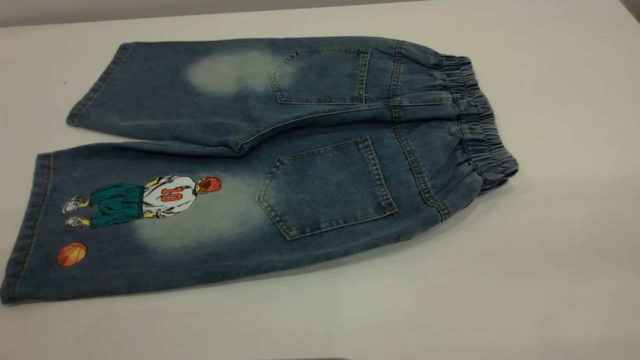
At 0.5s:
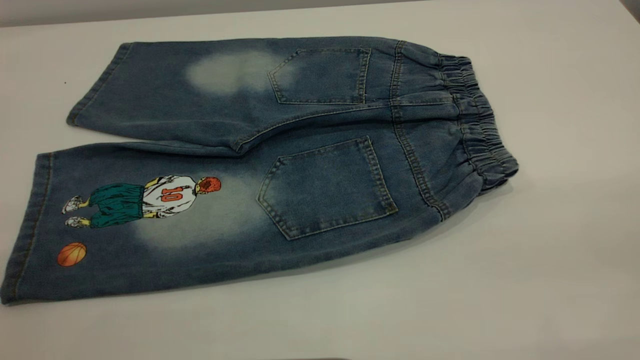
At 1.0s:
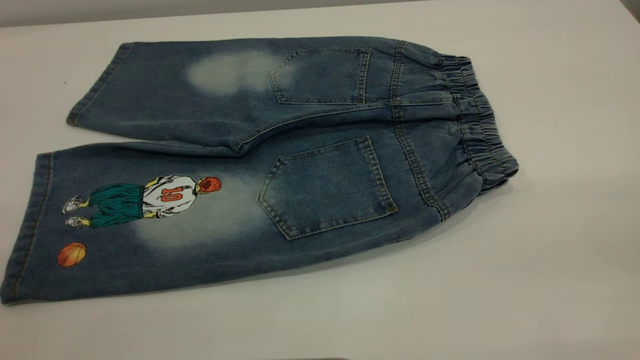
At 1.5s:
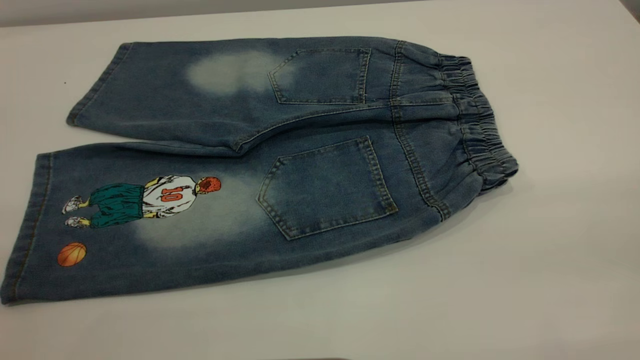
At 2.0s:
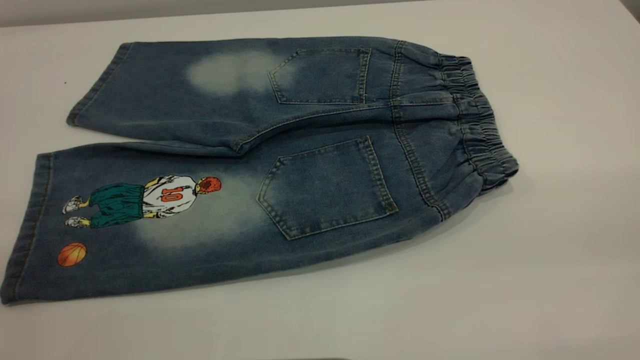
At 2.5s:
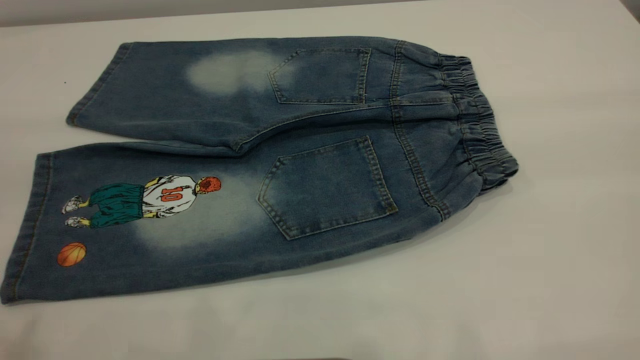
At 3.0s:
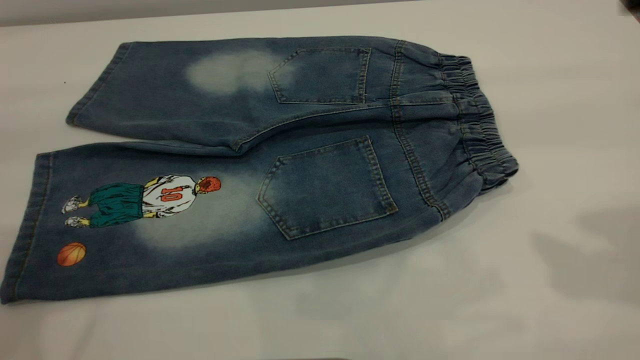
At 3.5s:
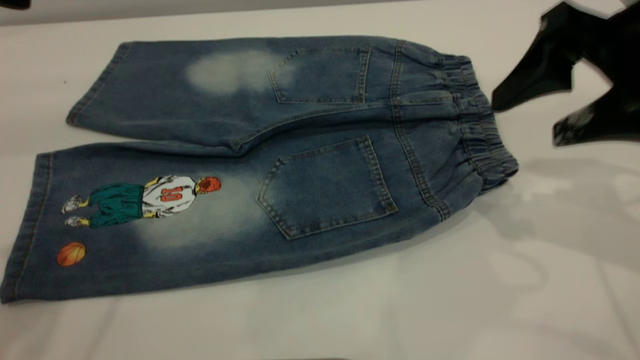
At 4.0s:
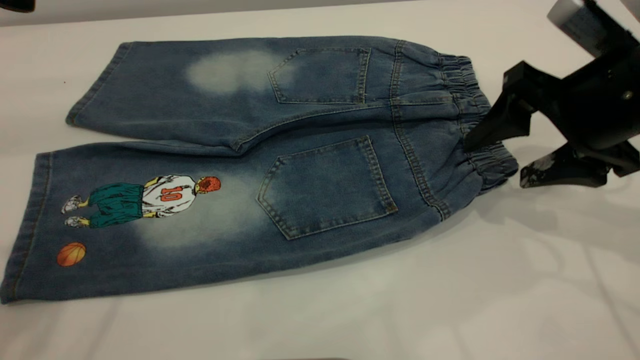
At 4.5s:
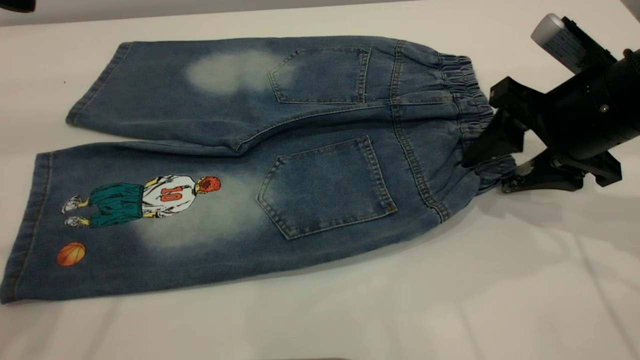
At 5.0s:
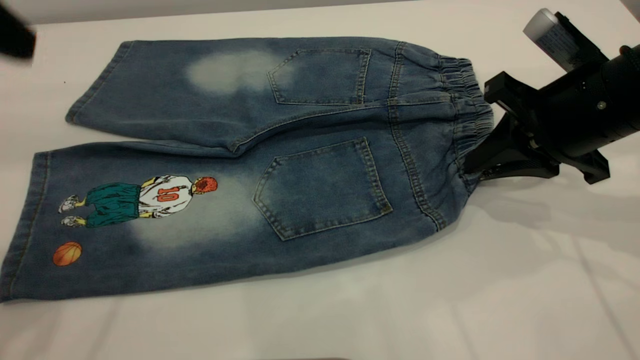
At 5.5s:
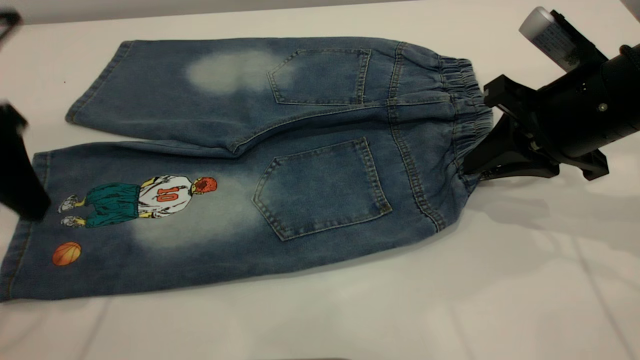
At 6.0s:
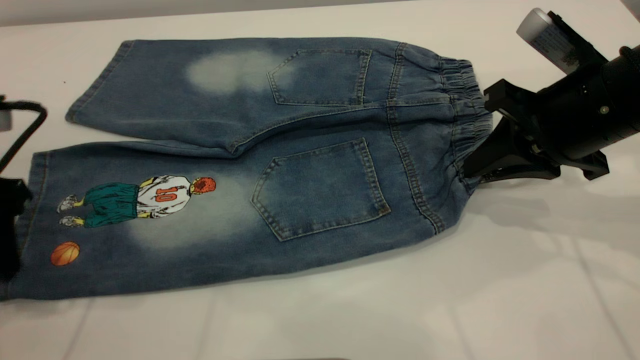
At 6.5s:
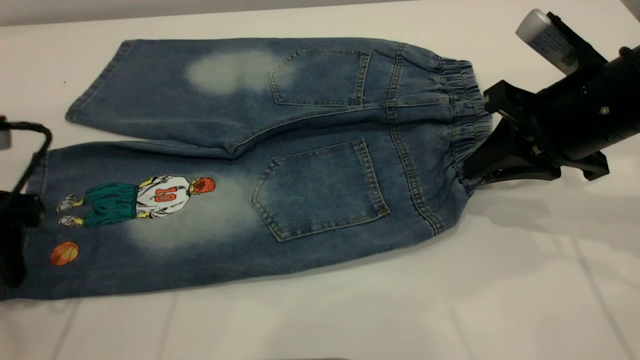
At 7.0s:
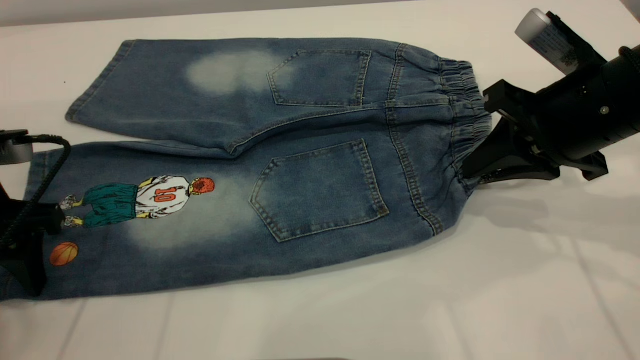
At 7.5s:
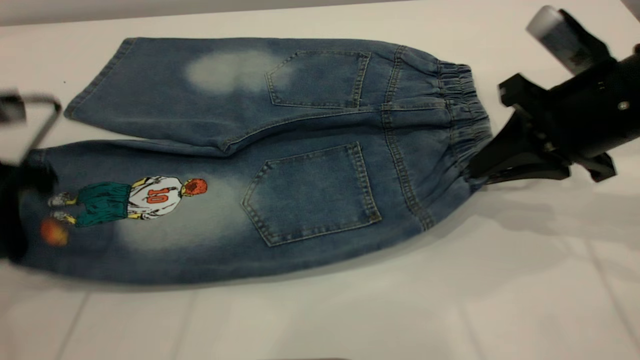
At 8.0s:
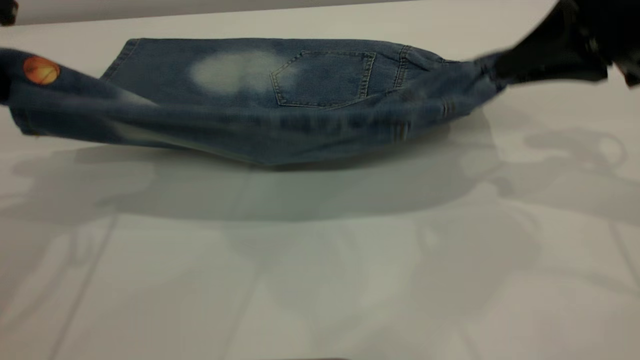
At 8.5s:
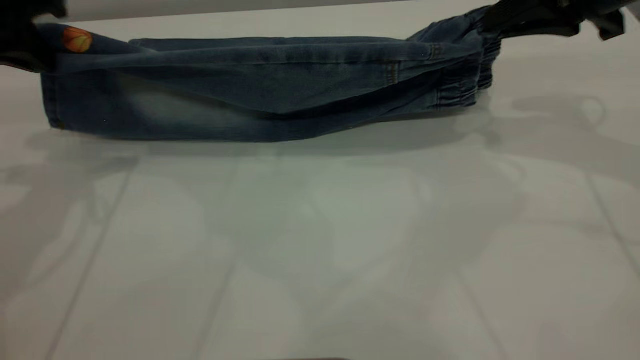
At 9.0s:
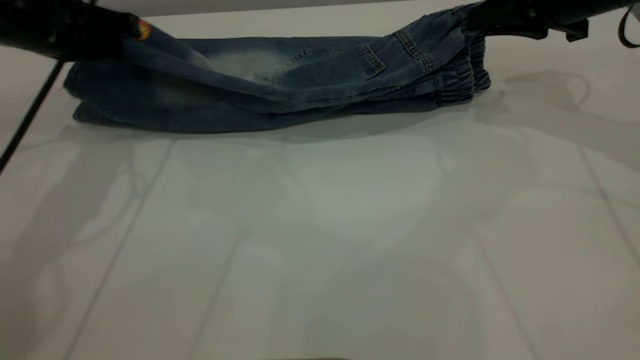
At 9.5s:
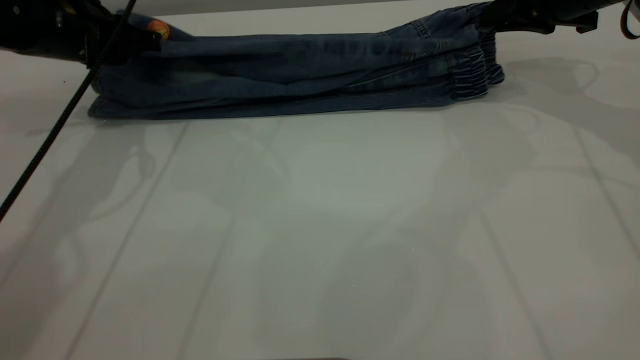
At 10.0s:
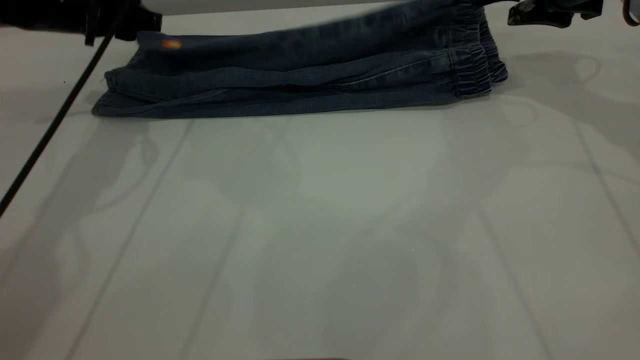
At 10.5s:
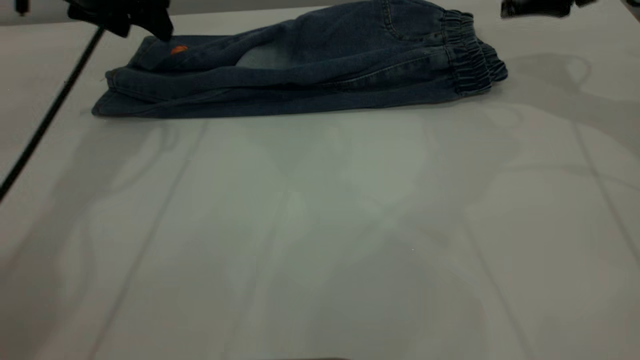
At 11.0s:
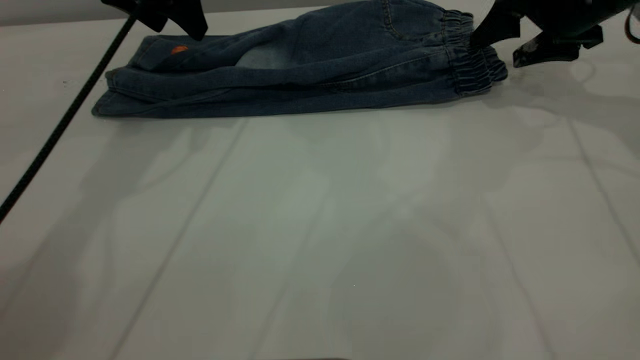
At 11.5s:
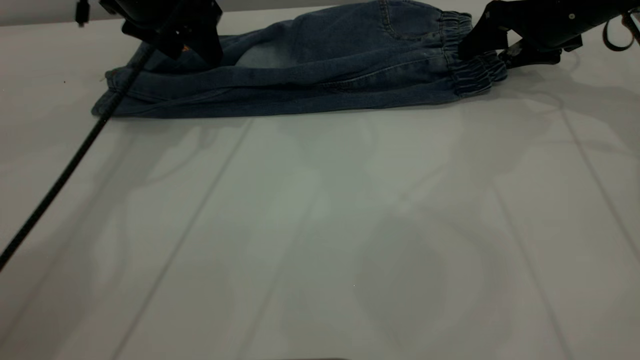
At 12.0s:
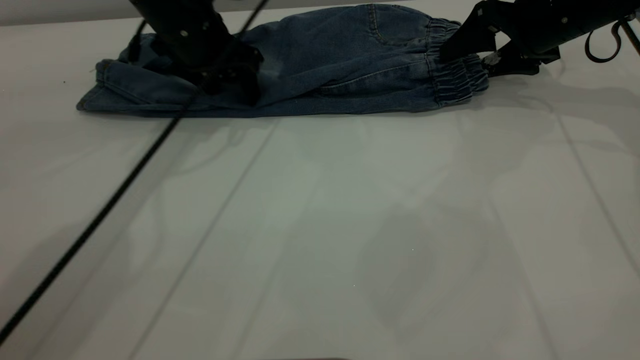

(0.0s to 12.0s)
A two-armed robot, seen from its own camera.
Step, 0.0s - 10.0s: Fold the bottom of the pants upward.
2.0s - 4.0s: The right gripper is displaced forward and downward by approximately 35 cm.
4.0s - 6.0s: The right gripper closes, while the left gripper is displaced downward by about 15 cm.
6.0s - 8.0s: The right gripper is displaced upward by about 10 cm. Meanwhile the left gripper is displaced upward and forward by some 10 cm, and closes its fingers.
8.0s - 10.0s: The right gripper goes some 15 cm forward, and opens its fingers. Meanwhile the left gripper goes about 15 cm forward and downward, and opens.
10.0s - 12.0s: The right gripper ends up some 5 cm from where it was. The left gripper travels to the right by about 10 cm.

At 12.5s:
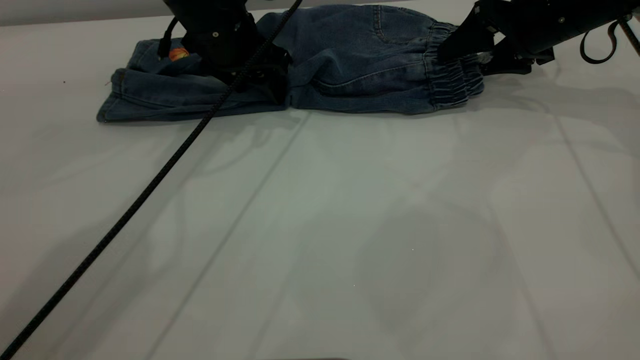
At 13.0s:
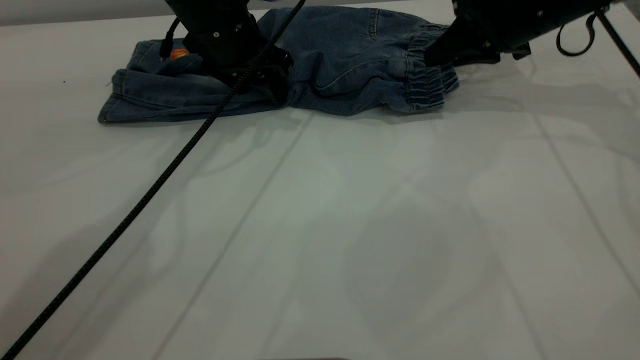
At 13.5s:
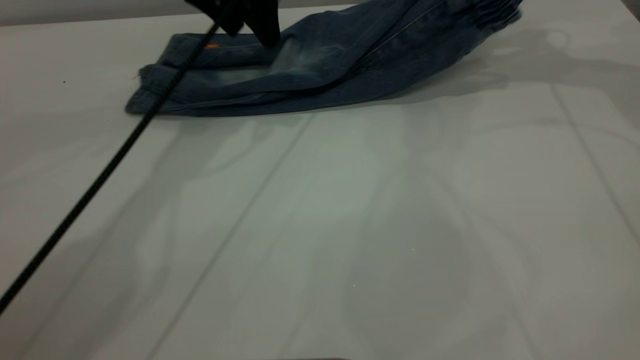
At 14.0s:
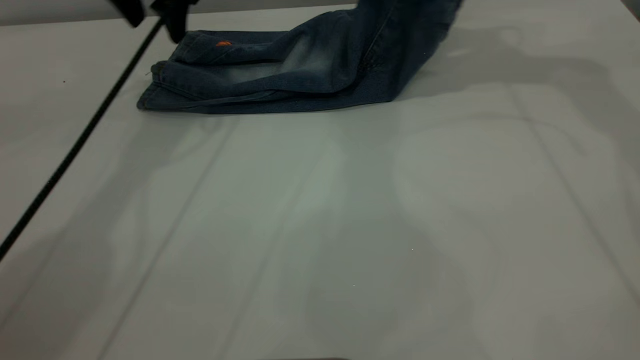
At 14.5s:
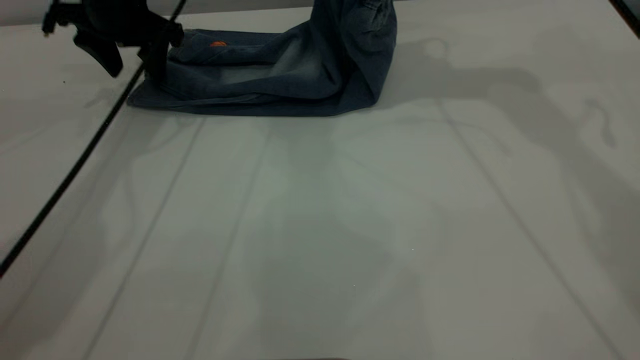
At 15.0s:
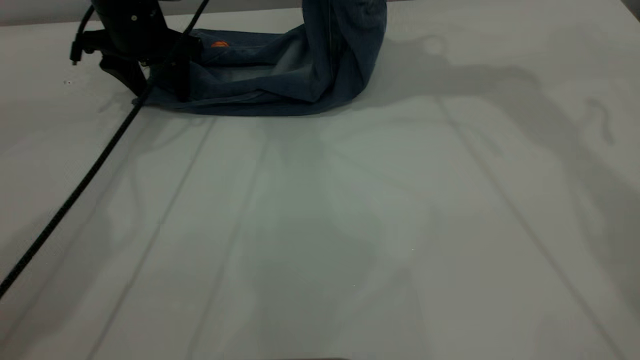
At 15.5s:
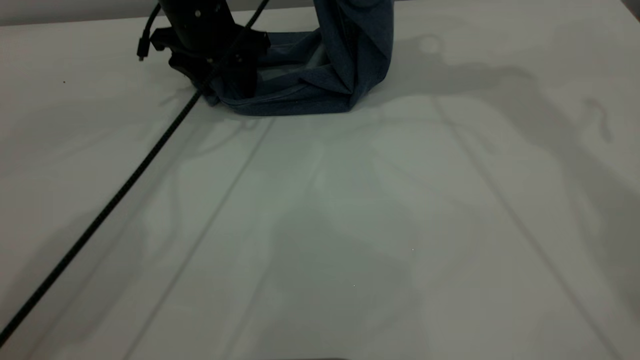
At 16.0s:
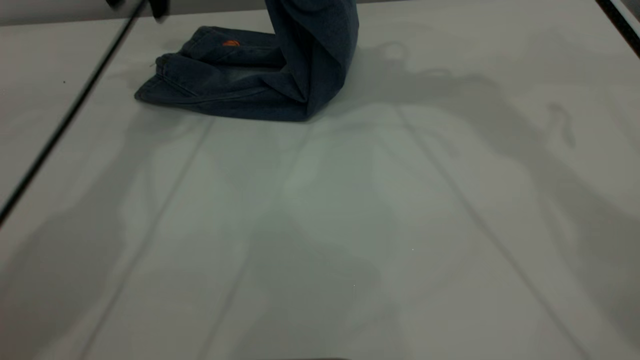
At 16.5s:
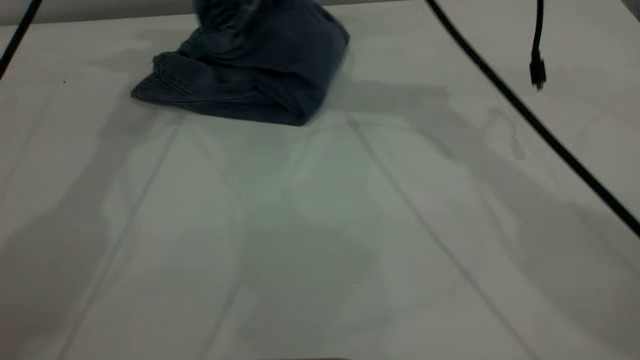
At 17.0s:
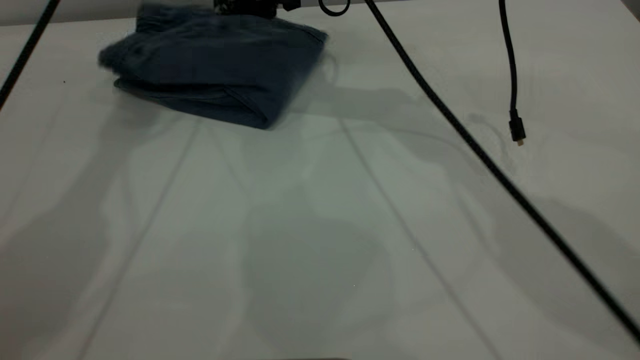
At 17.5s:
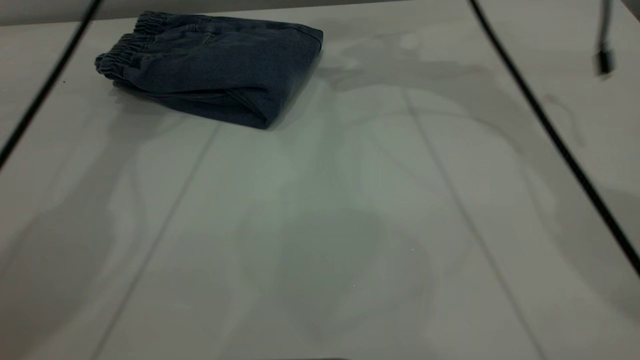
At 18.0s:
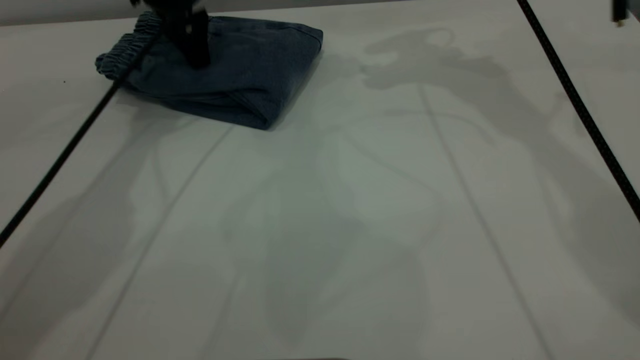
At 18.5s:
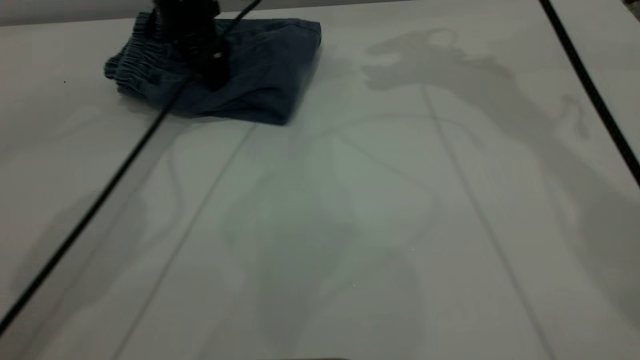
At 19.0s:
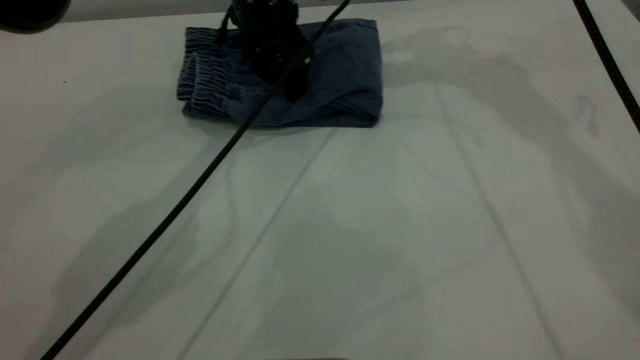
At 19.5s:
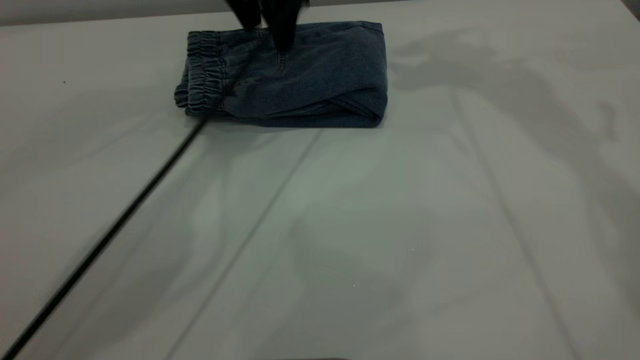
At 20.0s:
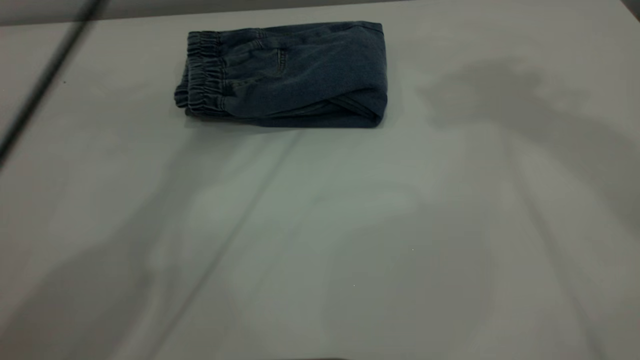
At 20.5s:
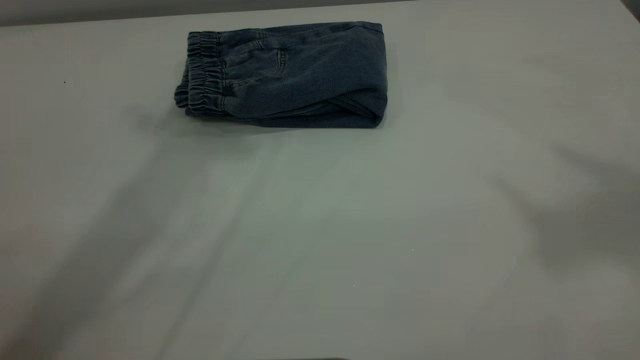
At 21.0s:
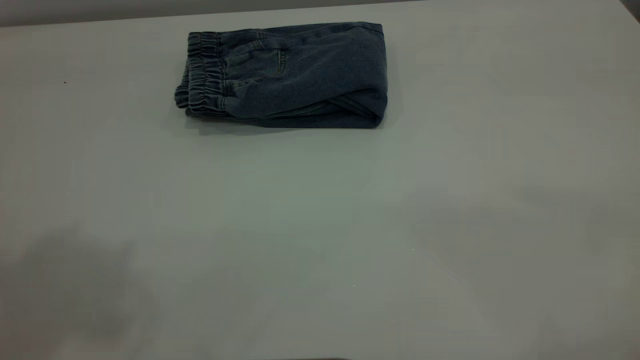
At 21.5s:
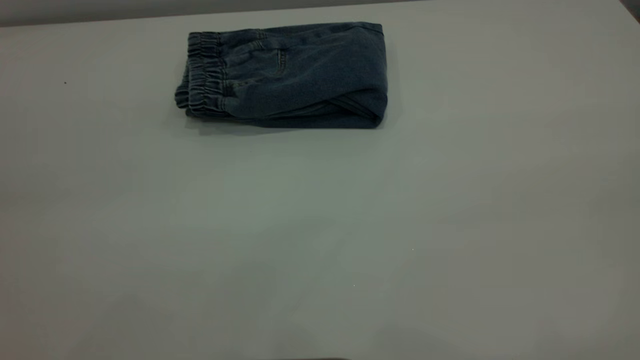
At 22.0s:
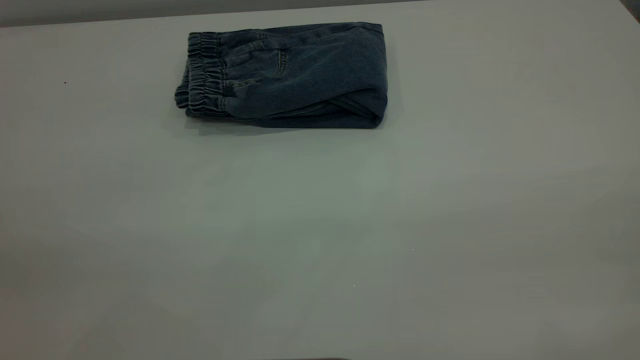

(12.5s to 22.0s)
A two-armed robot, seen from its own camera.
Step, 12.5s - 17.0s: Fold your pants from right to left.
12.5s - 14.5s: The right gripper moves upward and to the left, about 20 cm, and closes its fingers; the left gripper shifts some 10 cm to the left.
14.5s - 16.5s: The left gripper heads upward, covering some 15 cm; the right gripper shifts roughly 15 cm to the left and downward.
16.5s - 18.0s: The right gripper goes roughly 10 cm to the right, and opens its fingers. Meanwhile the left gripper moves downward, roughly 15 cm.
18.0s - 20.0s: The left gripper is displaced upward by about 25 cm. Meanwhile the right gripper is displaced upward and backward by about 30 cm.
20.0s - 22.0s: The left gripper travels backward and to the left by roughly 50 cm.
